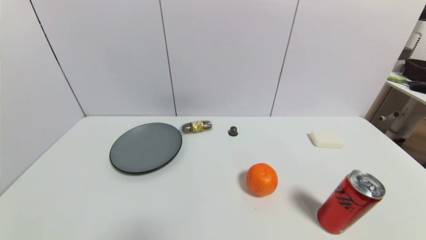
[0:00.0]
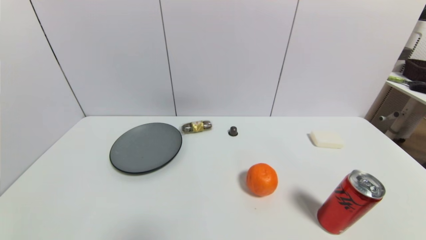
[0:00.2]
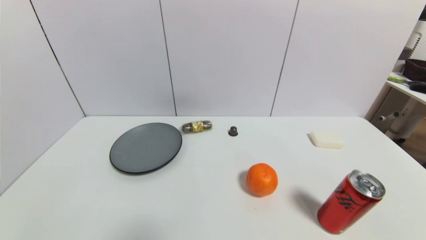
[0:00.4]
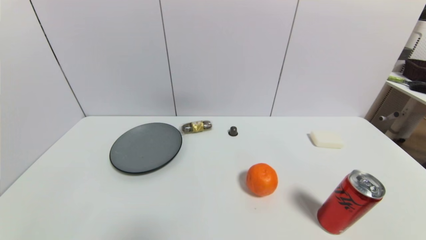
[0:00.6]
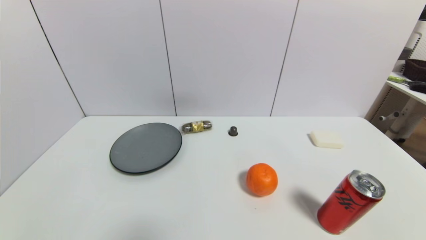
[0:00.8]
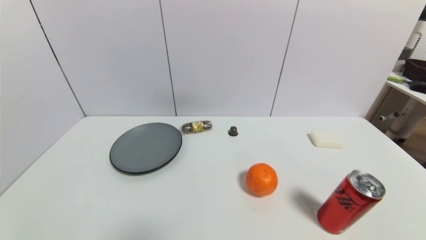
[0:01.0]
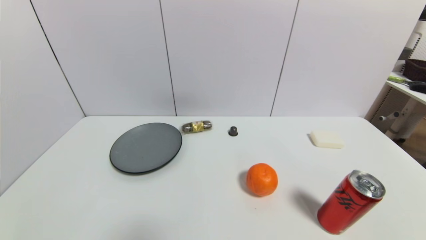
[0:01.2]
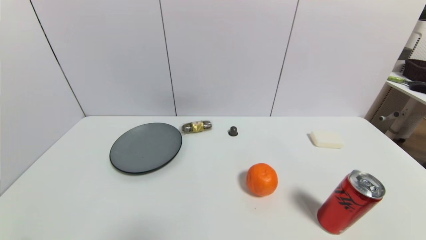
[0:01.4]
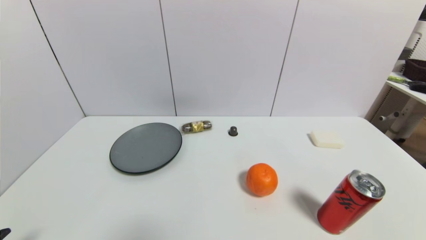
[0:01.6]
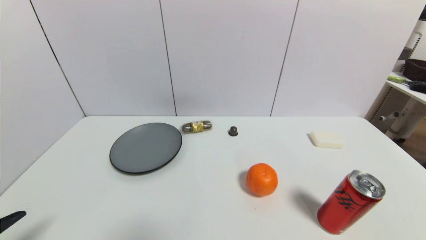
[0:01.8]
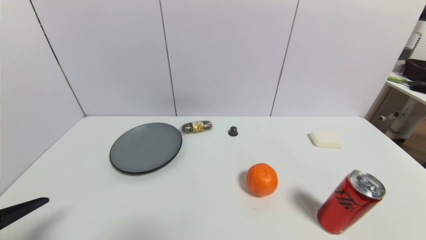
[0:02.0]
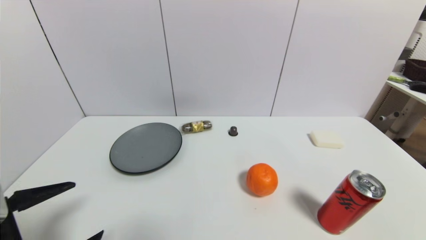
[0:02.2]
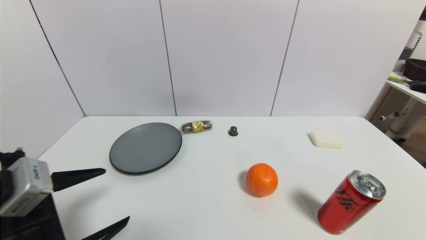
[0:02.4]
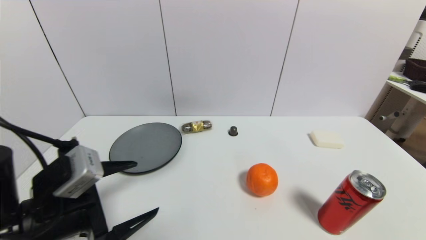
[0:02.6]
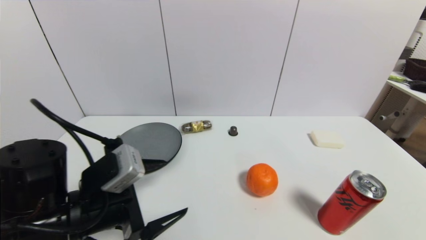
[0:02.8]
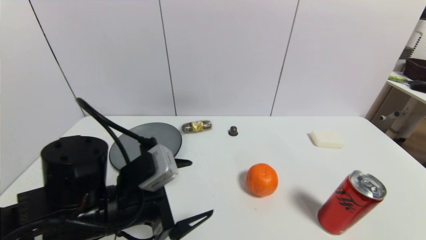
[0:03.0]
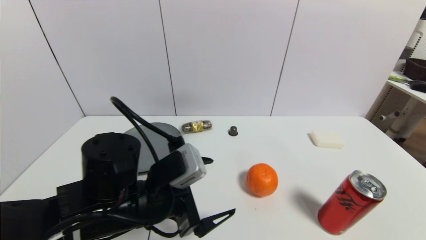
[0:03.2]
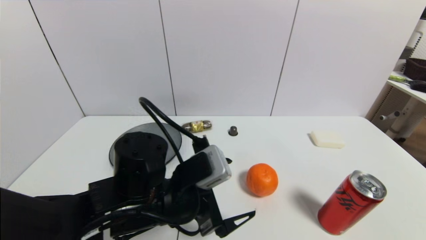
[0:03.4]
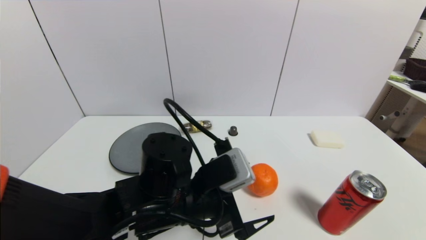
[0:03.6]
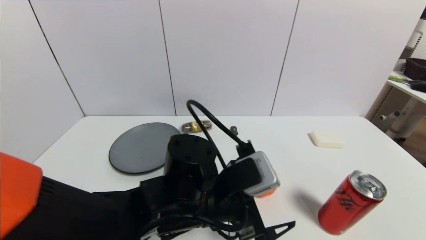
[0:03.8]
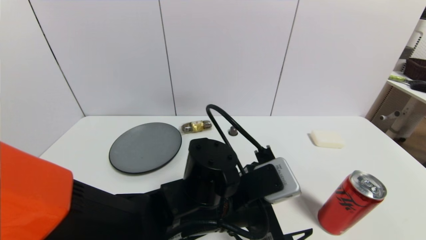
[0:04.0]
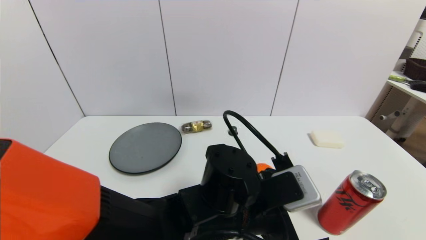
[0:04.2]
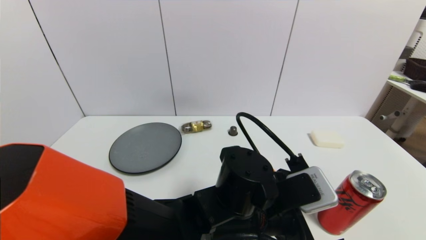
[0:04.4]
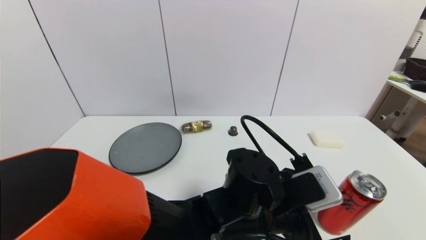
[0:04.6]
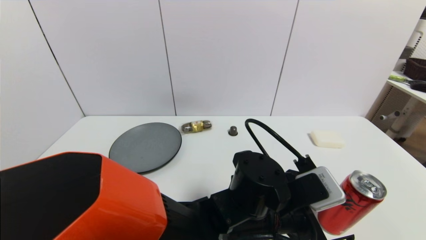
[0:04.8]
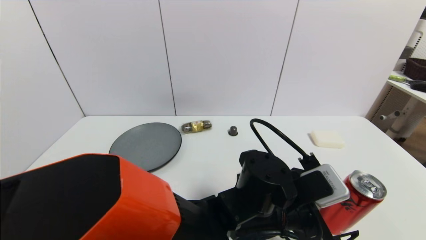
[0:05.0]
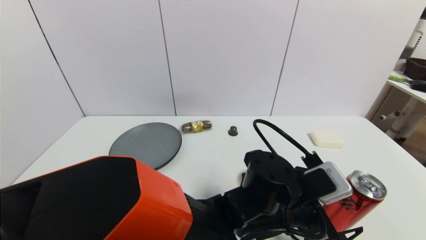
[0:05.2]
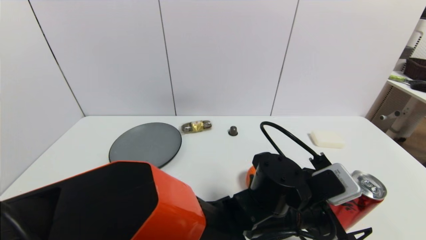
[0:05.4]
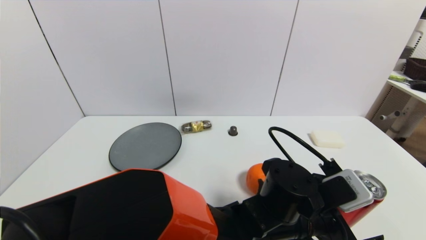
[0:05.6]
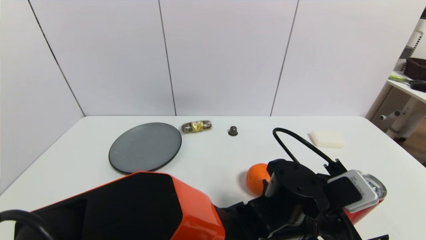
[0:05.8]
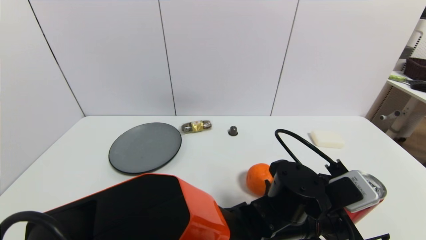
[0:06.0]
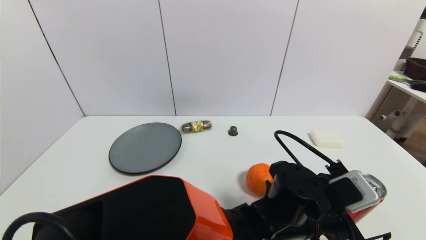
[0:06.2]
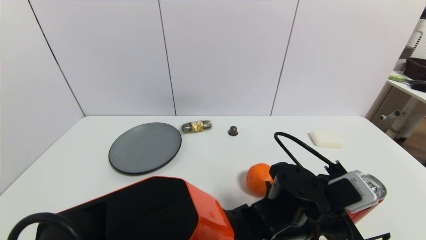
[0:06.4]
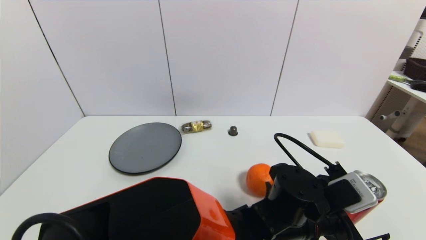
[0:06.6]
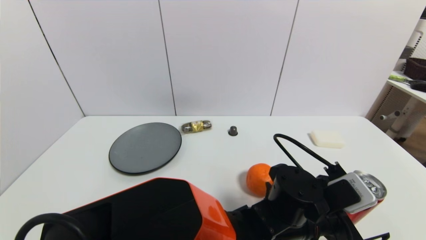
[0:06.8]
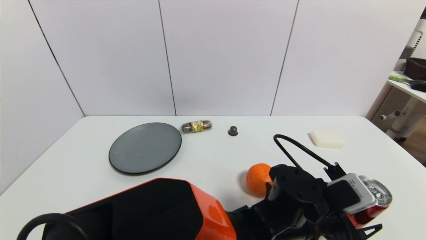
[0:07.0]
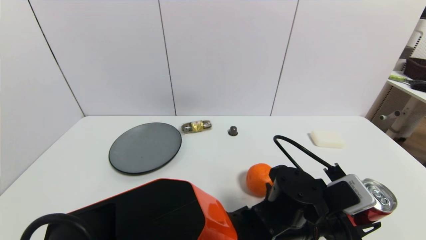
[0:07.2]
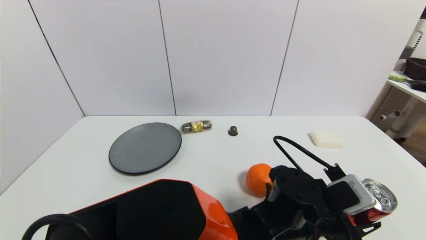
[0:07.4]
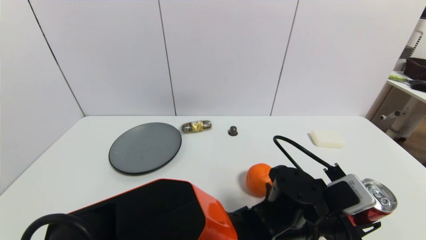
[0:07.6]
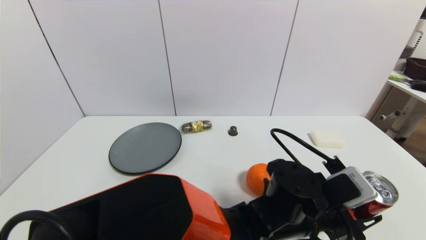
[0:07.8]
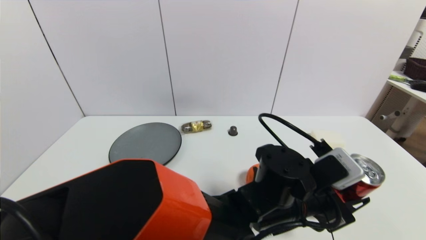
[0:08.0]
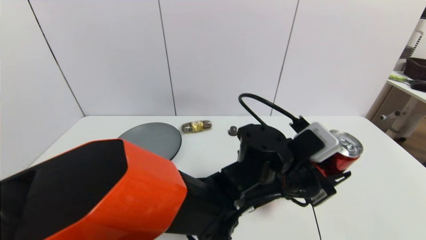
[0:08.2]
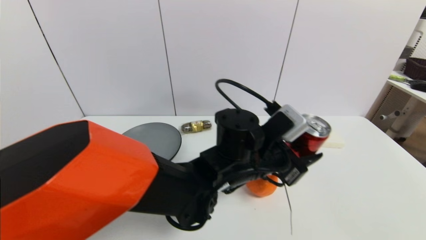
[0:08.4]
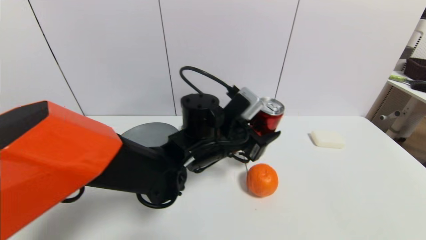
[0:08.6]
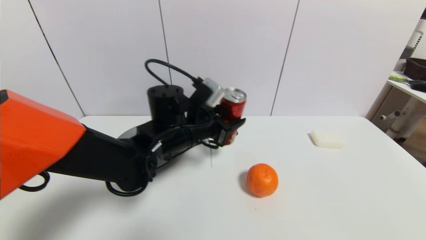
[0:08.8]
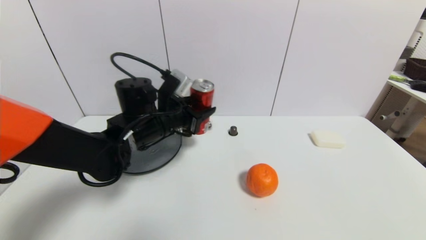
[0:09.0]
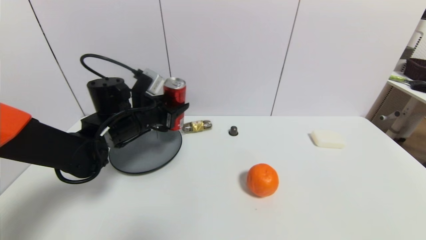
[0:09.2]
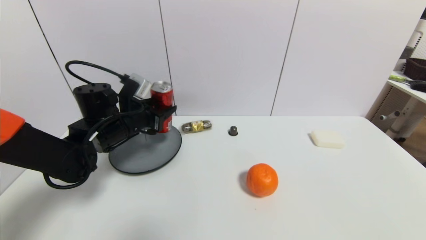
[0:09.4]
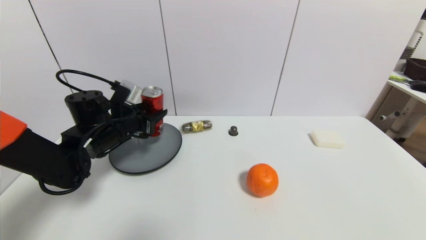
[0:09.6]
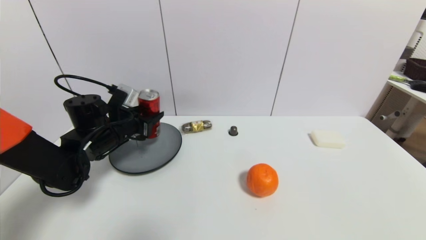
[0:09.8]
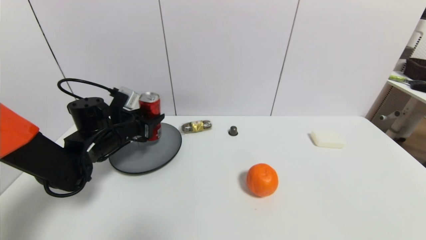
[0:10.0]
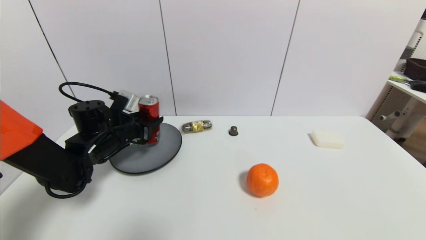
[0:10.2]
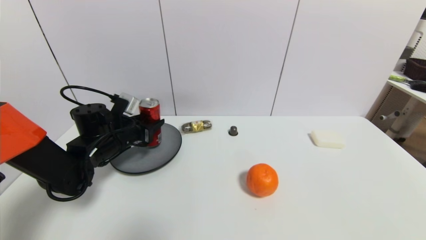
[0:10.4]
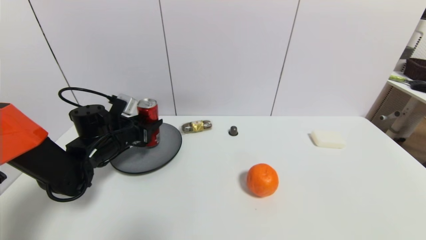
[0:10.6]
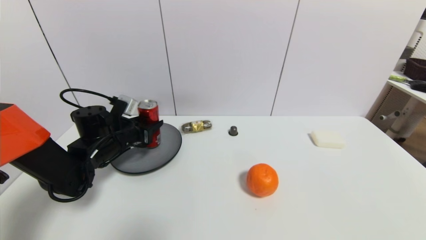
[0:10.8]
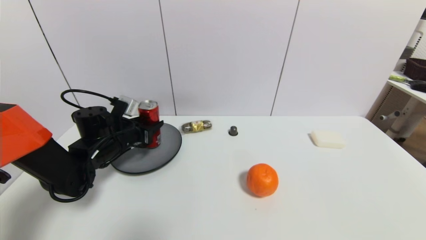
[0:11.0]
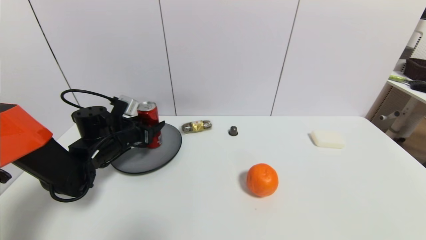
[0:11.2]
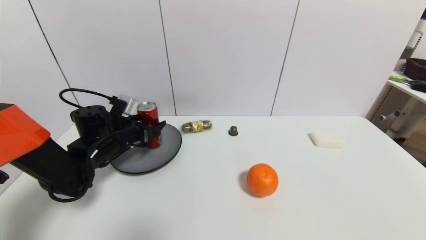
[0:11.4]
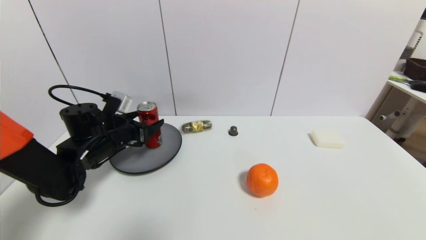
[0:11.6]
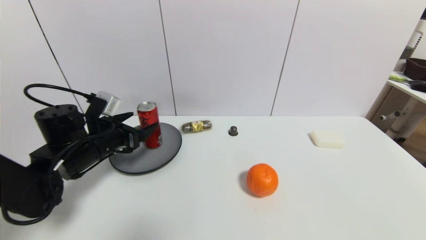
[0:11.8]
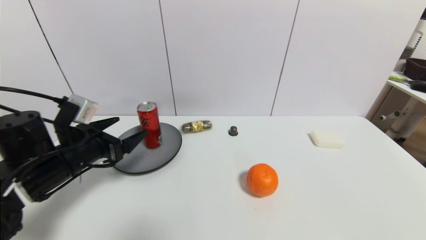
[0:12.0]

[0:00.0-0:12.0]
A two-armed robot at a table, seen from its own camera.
Task of the whole recording: use a gripper to pick the target object and place on the gray plate.
Step, 0:00.0 to 0:07.4: Grasp the coke with the left gripper.
Step, 0:07.6 to 0:11.8: Place the coke on the gray plate with the left gripper.
0:01.6 to 0:03.0: The left gripper moves forward and to the right, roughly 25 cm.
0:03.0 to 0:04.4: The left gripper travels to the right by roughly 20 cm.
0:04.4 to 0:06.0: The left gripper is displaced to the right by approximately 10 cm.
0:06.0 to 0:07.6: The left gripper closes.
0:07.6 to 0:09.0: The left gripper shifts approximately 30 cm to the left and forward.
0:09.0 to 0:10.4: The left gripper shifts roughly 15 cm to the left and downward.
0:10.4 to 0:12.0: The left gripper heads backward, covering roughly 10 cm, and opens its fingers.

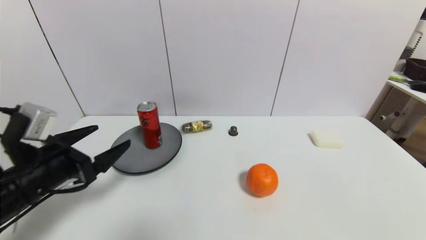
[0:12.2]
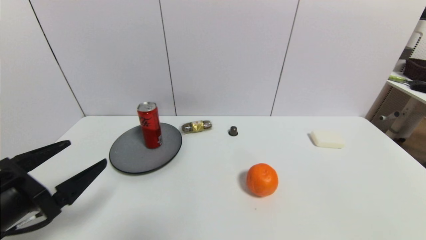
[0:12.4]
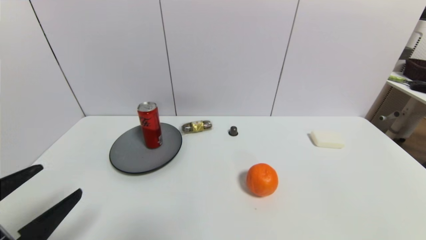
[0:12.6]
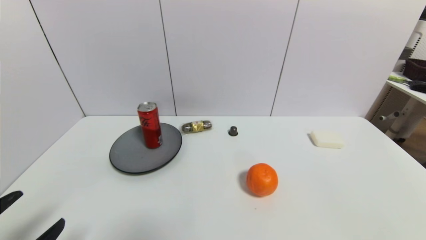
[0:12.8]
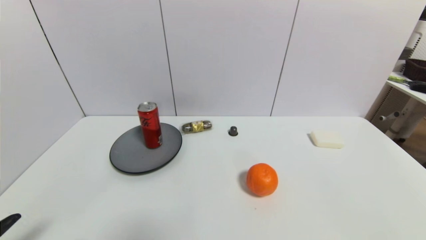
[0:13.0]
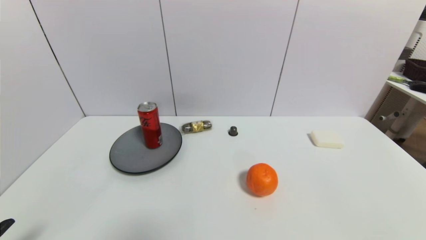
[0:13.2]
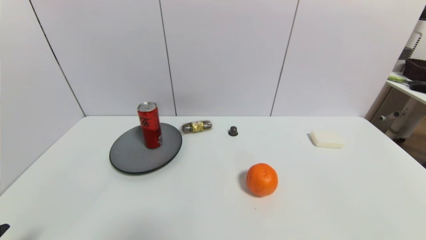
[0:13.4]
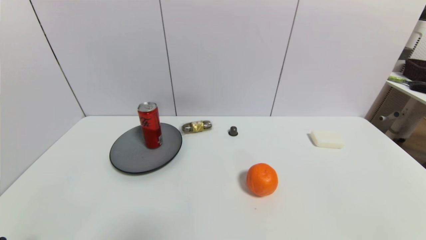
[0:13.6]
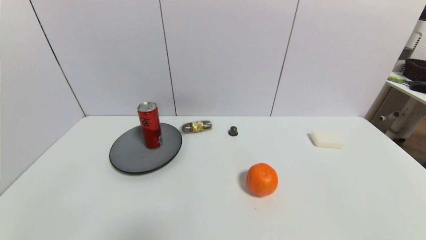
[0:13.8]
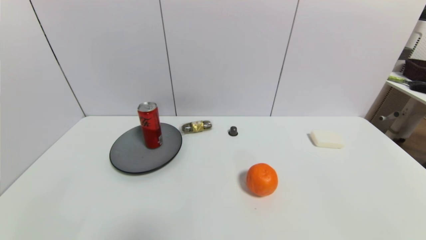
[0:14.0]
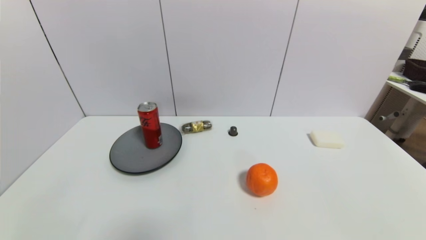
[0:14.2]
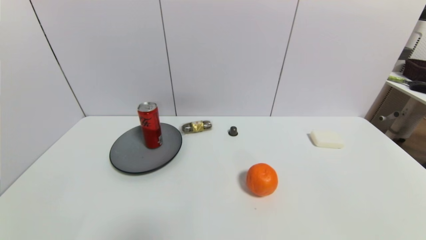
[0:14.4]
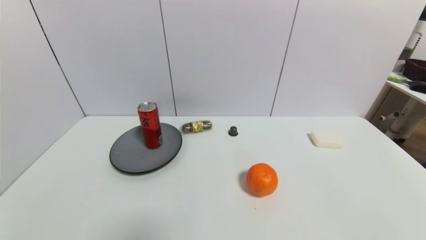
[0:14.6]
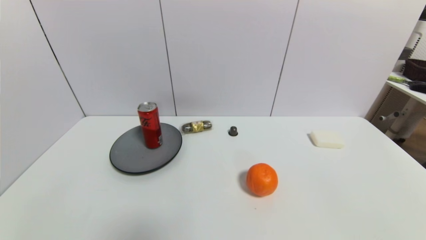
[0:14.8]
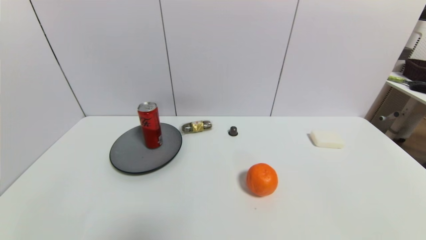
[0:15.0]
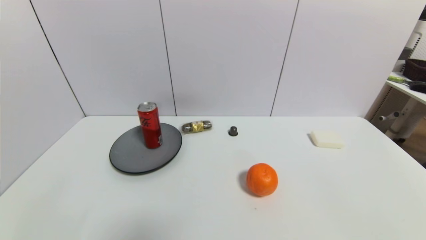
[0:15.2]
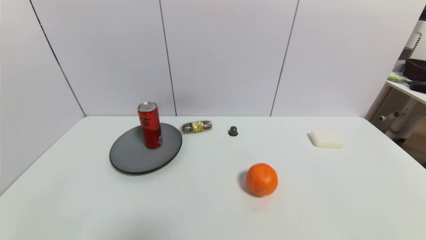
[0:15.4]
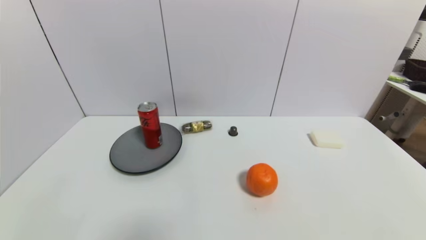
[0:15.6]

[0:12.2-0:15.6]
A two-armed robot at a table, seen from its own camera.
Task of the whole recording: use a gripper to pick the target object and place on the gray plate.
0:12.2 to 0:13.8: The left gripper goes some 20 cm backward and downward.
0:13.8 to 0:15.6: Both grippers stay about where they are.
